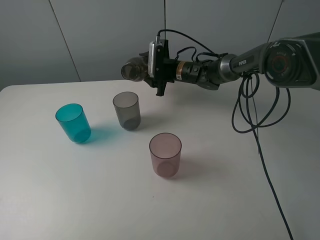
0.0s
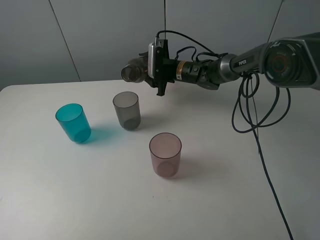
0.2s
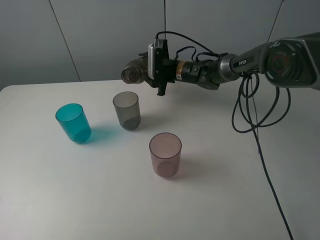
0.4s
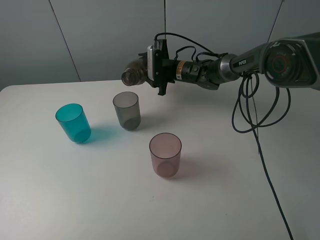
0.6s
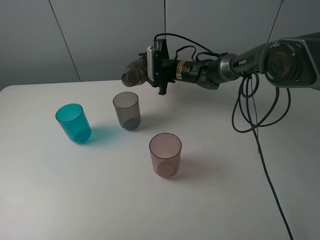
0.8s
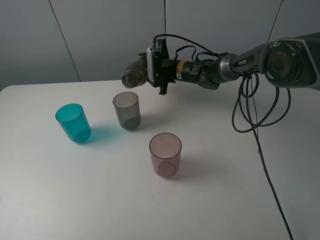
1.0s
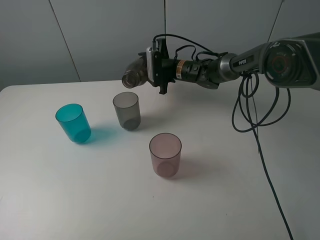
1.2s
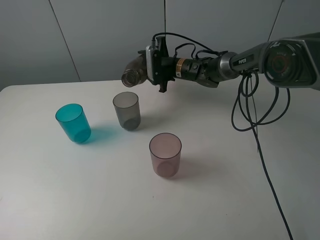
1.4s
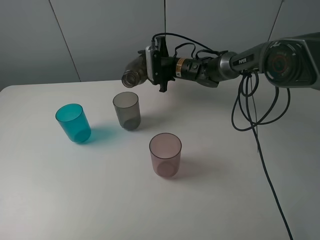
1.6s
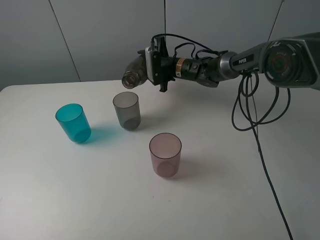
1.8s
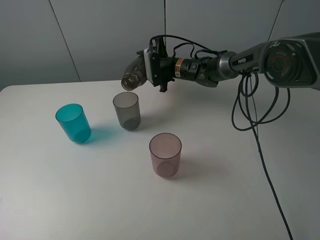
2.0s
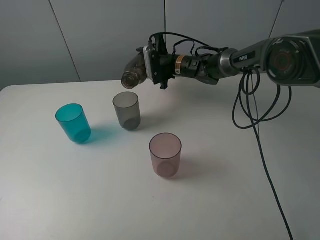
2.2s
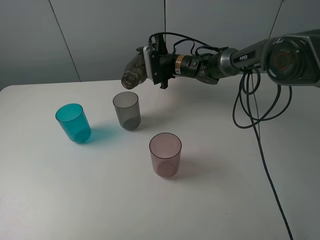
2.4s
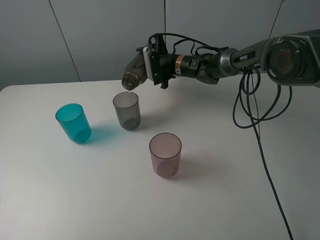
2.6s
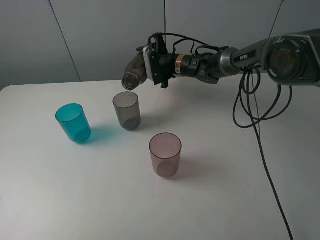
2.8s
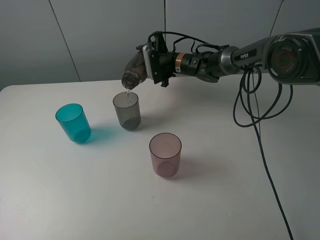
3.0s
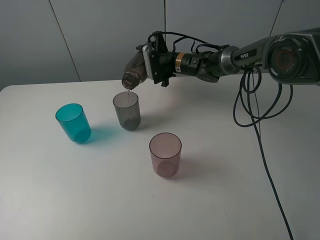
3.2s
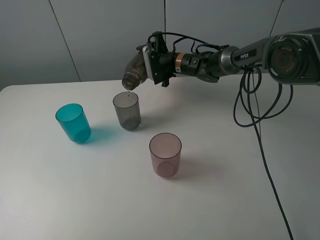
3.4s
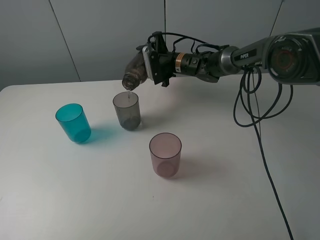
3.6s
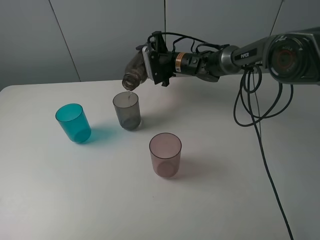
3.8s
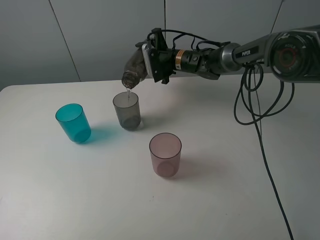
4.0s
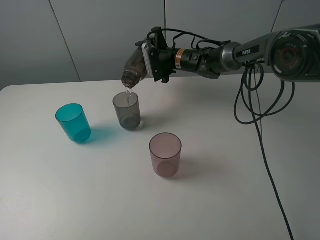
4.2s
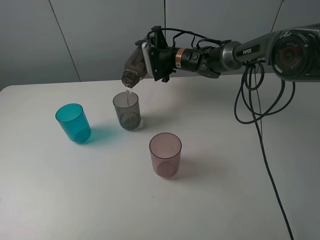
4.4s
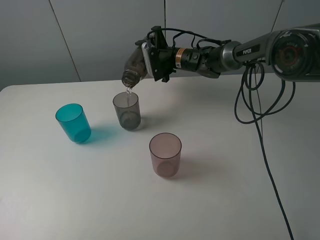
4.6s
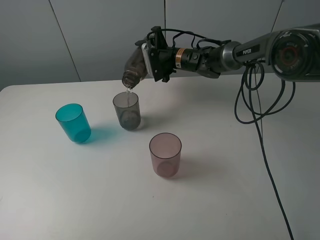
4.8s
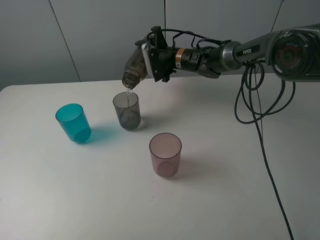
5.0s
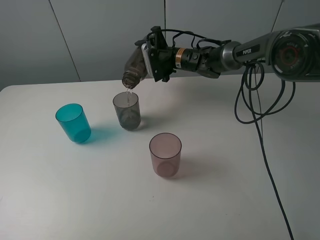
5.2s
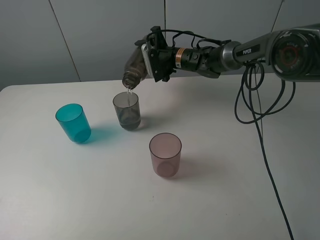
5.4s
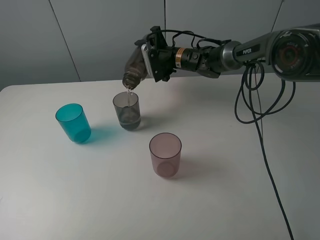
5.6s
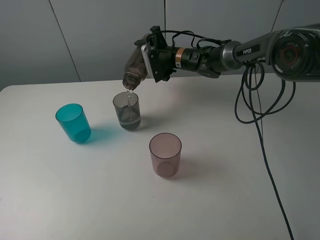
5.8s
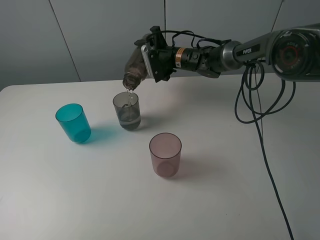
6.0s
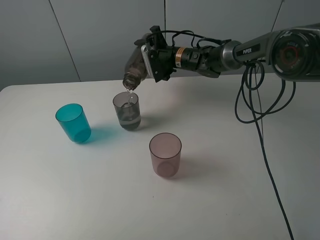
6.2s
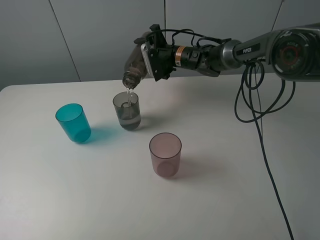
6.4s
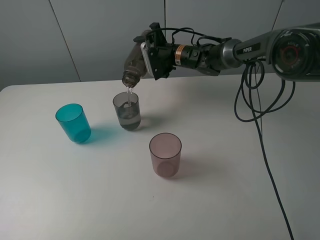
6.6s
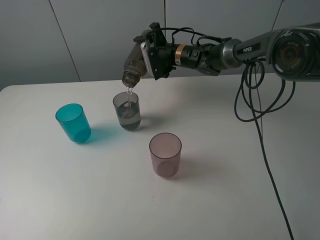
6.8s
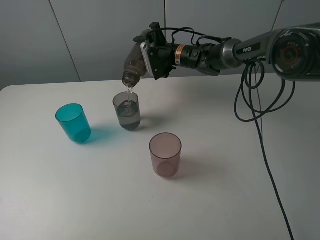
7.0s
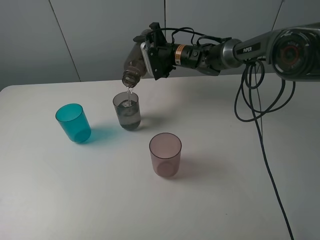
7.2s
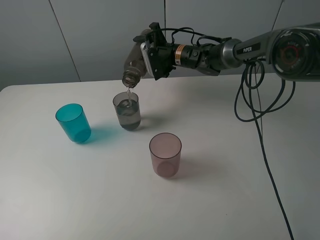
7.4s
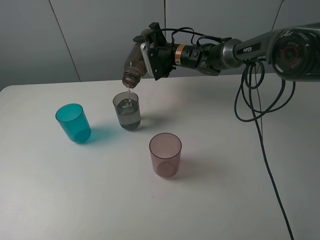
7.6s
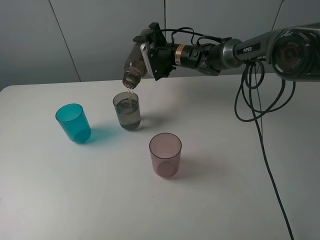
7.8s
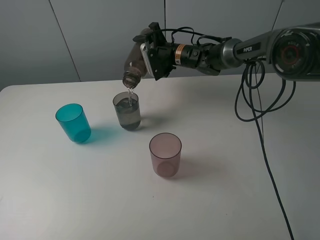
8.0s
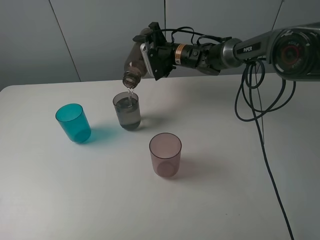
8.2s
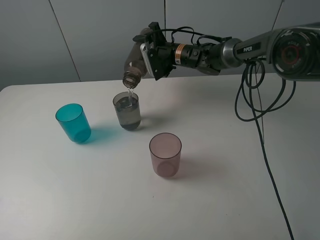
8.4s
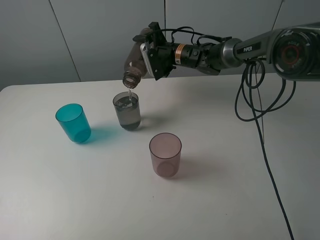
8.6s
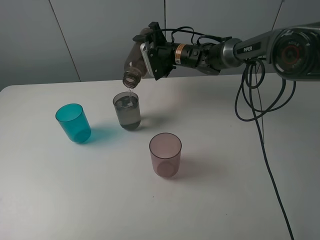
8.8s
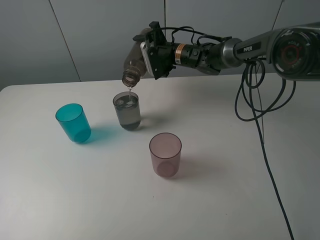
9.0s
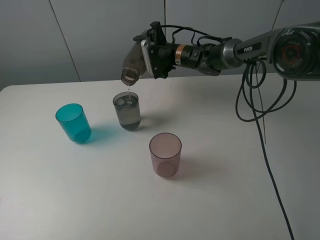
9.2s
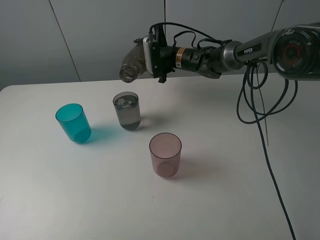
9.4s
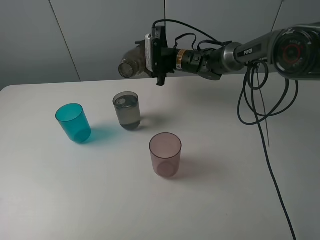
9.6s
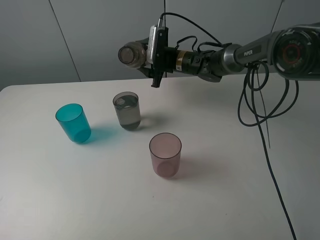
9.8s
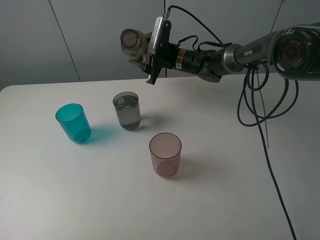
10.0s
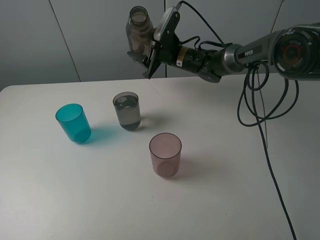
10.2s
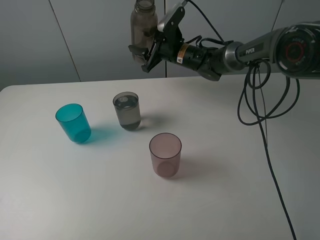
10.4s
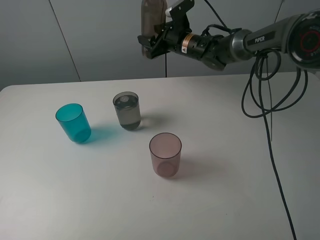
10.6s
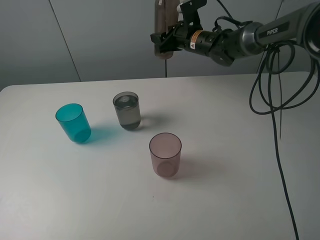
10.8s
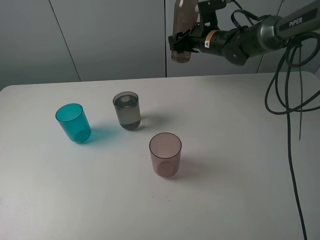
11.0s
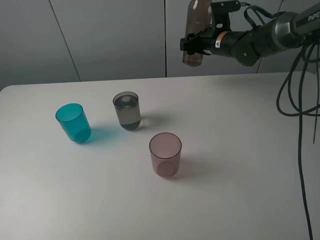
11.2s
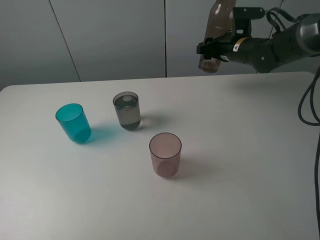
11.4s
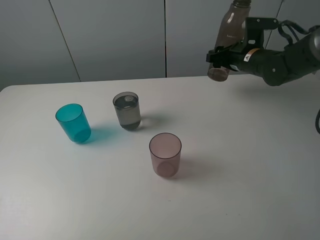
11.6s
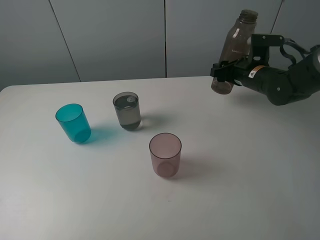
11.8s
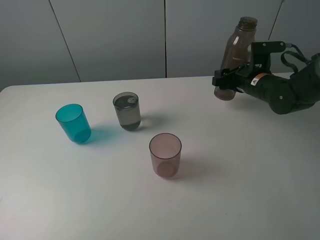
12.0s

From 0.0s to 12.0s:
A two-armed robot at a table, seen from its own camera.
Task of the whole recording: pick up the bottle filled with water and pour water into the middle cup of the three cups.
From 0.0s to 1.6s: The grippers make only small movements.
From 1.6s to 3.0s: The grippers stay close to where they were, moving slightly.
From 3.0s to 4.4s: Both grippers stay put.
From 4.4s to 6.0s: Both grippers stay put.
From 6.0s to 9.0s: Both grippers stay put.
From 10.4s to 12.0s: The right gripper moves to the right and backward, some 20 cm.

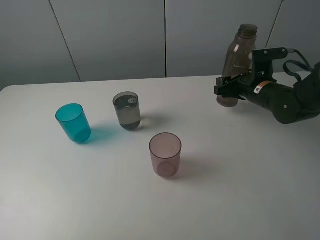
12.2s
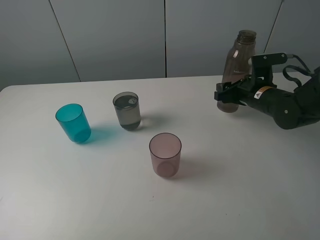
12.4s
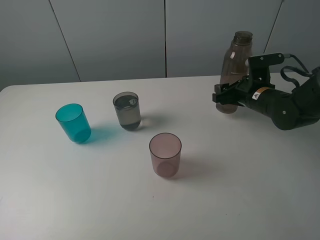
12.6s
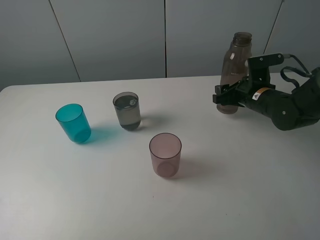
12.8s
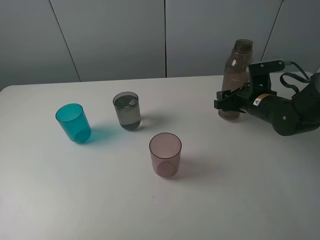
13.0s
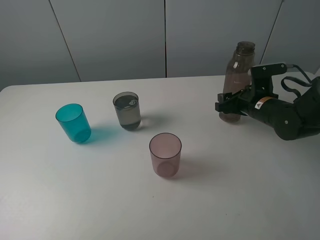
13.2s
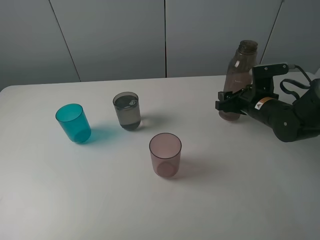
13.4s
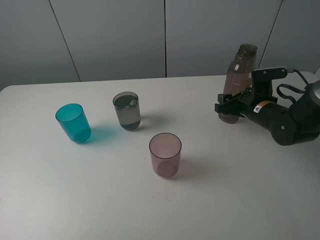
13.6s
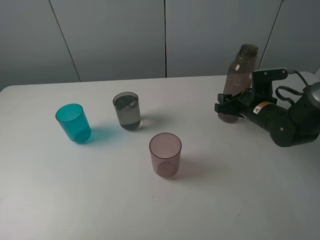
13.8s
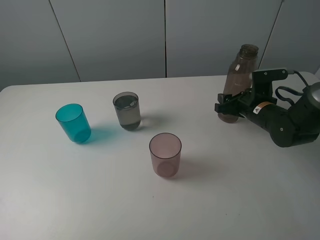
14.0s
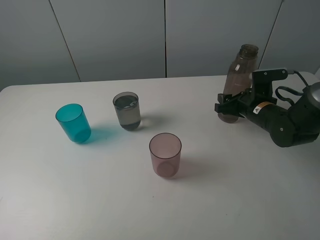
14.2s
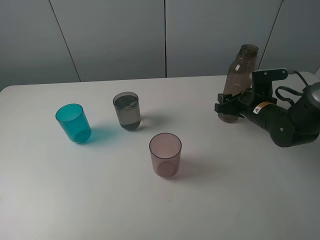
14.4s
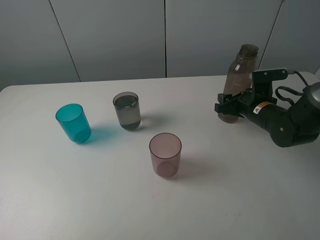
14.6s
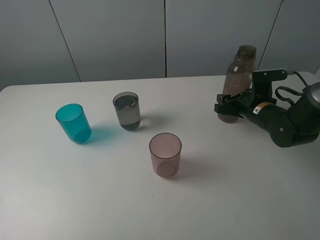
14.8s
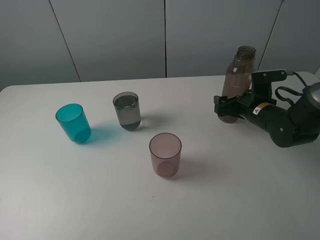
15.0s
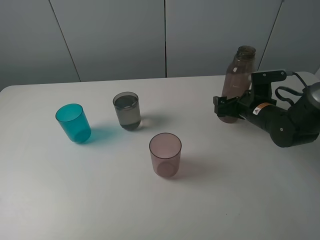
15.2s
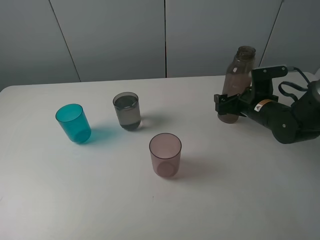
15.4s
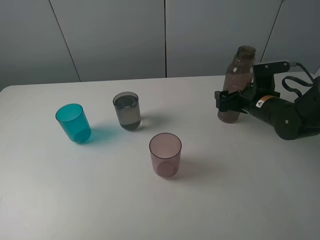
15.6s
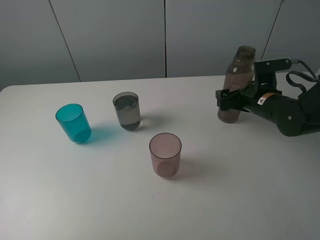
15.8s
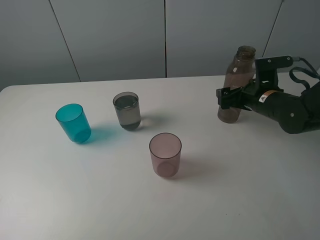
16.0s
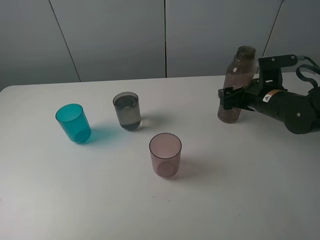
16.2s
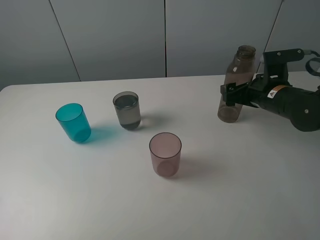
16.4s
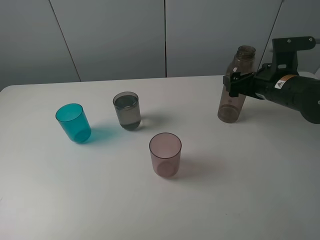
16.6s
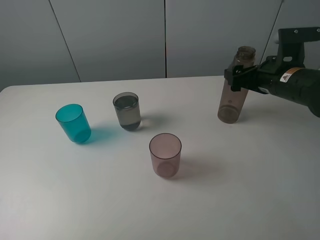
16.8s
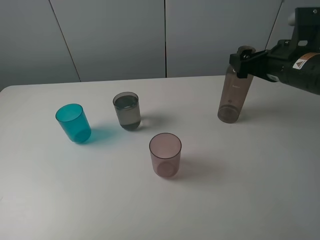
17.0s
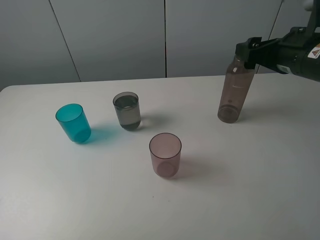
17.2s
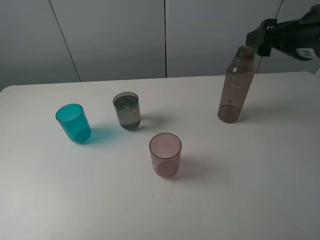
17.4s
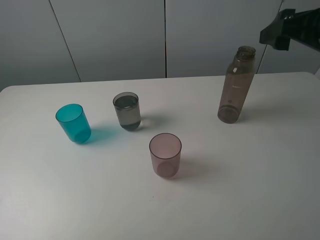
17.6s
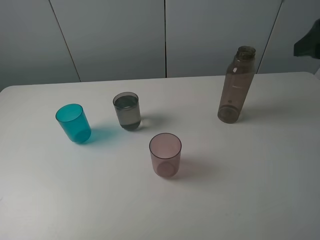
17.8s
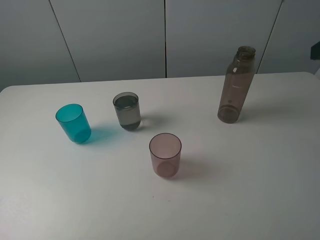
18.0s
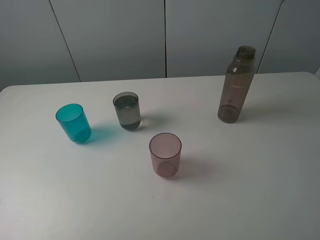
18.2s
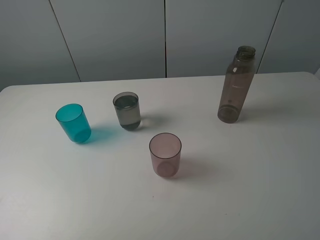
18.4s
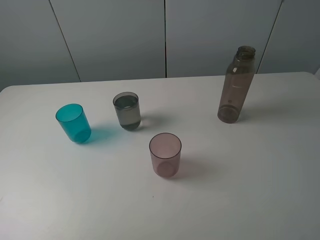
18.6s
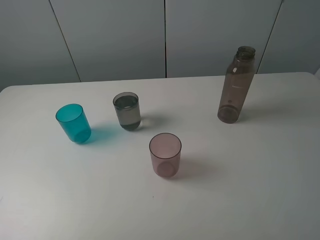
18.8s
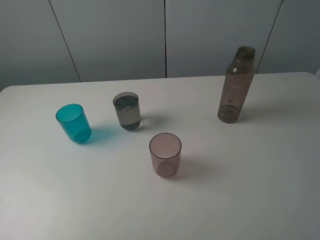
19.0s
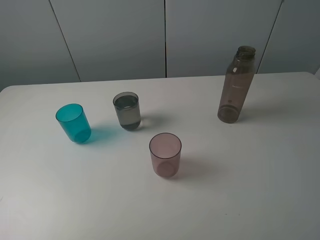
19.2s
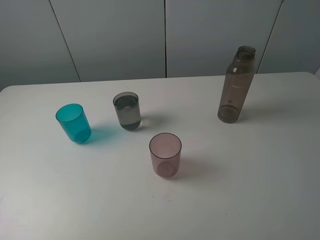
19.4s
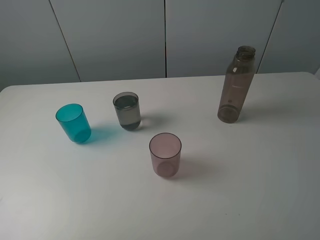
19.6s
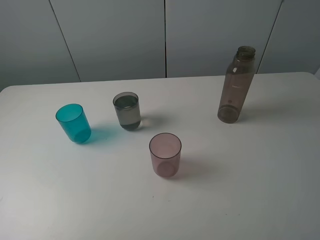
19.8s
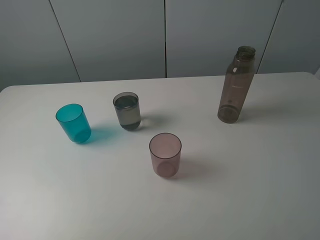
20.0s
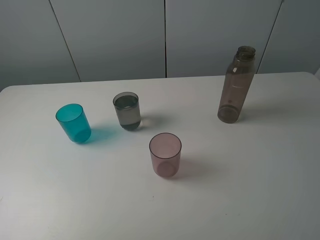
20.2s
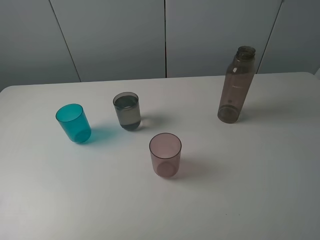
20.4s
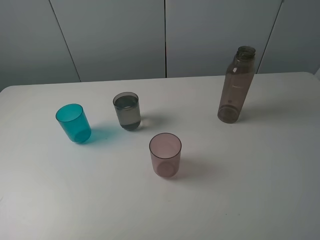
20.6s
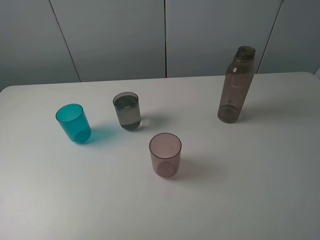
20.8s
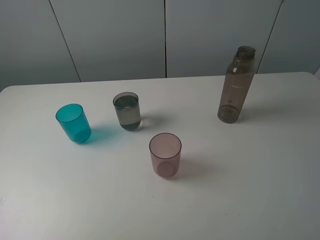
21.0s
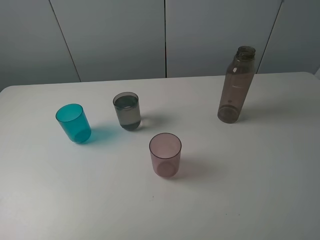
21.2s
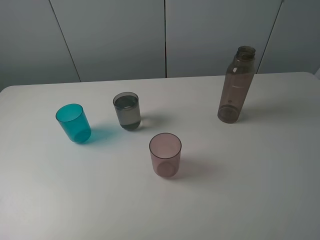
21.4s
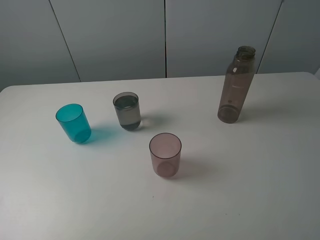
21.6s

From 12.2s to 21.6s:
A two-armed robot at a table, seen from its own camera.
Task of the whole recording: pick up the bottle filled with water and pour water into the middle cup of the three cups.
Step, from 12.2s to 16.2s: Place the transparent bottle with the right gripper.
From 12.2s to 13.8s: The grippers stay close to where they were, moving slightly.
From 13.8s to 15.4s: The right gripper opens up.
From 15.4s to 17.0s: The right gripper heads upward, covering some 15 cm.
From 17.0s to 18.4s: The right gripper goes roughly 20 cm backward and upward.
From 20.0s to 21.6s: The two grippers keep their place.
